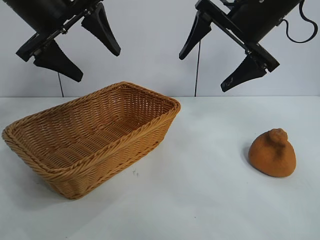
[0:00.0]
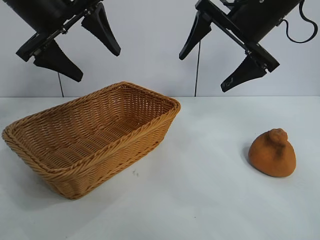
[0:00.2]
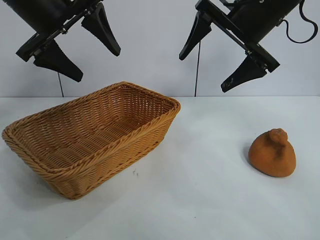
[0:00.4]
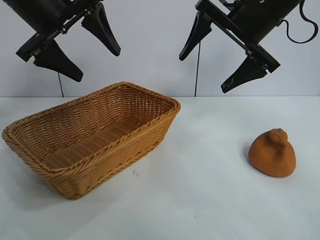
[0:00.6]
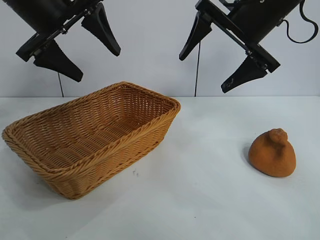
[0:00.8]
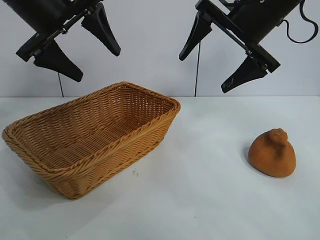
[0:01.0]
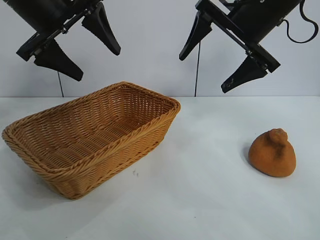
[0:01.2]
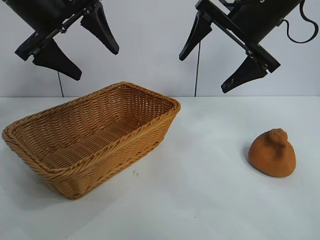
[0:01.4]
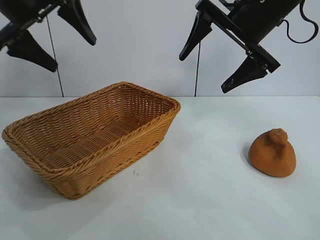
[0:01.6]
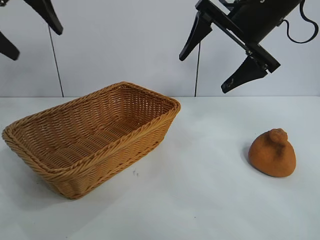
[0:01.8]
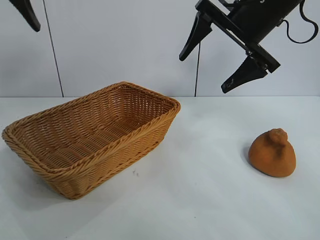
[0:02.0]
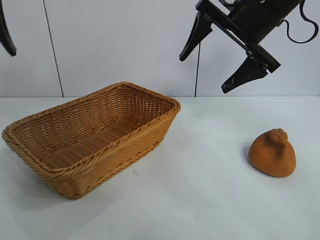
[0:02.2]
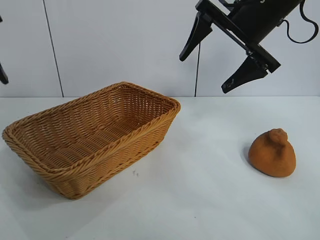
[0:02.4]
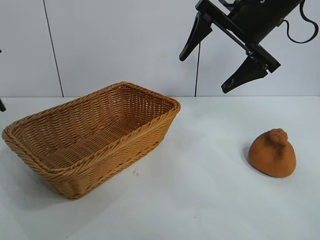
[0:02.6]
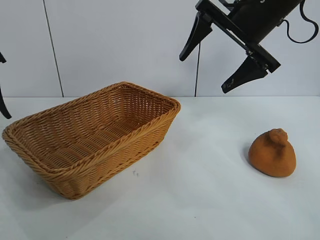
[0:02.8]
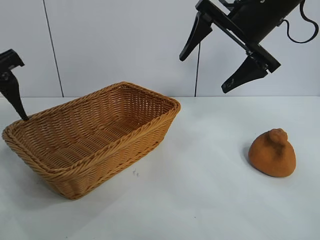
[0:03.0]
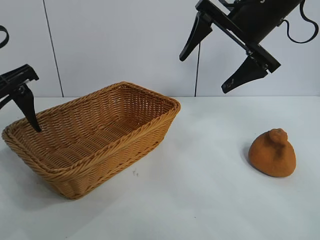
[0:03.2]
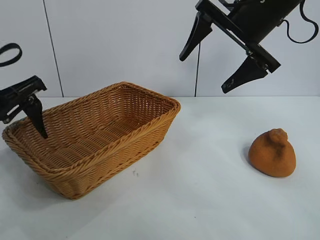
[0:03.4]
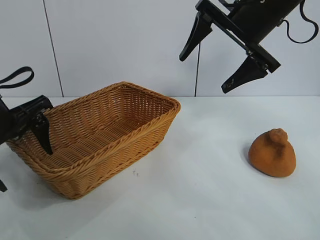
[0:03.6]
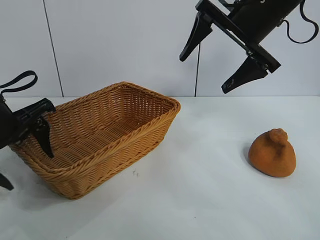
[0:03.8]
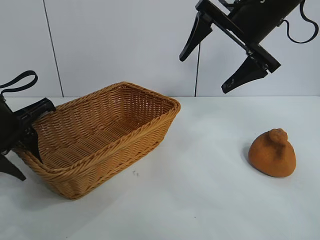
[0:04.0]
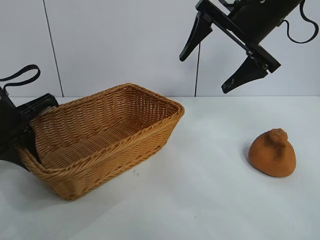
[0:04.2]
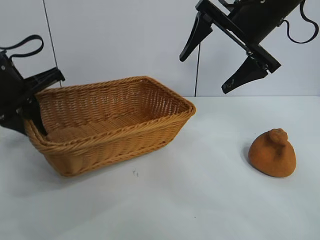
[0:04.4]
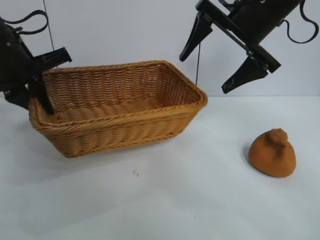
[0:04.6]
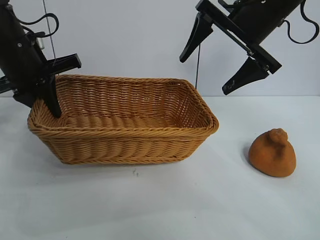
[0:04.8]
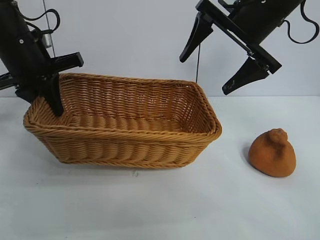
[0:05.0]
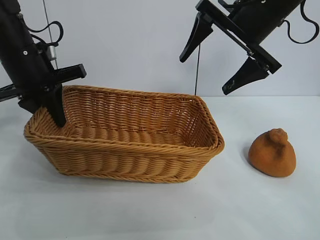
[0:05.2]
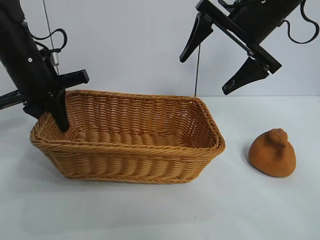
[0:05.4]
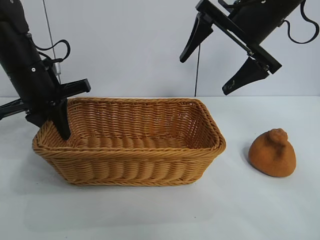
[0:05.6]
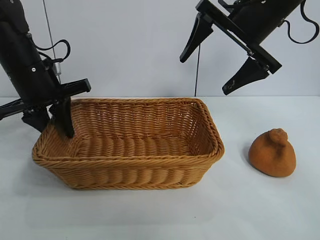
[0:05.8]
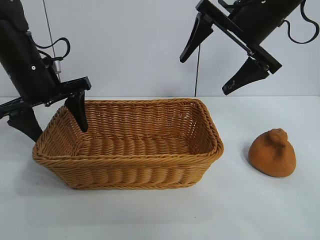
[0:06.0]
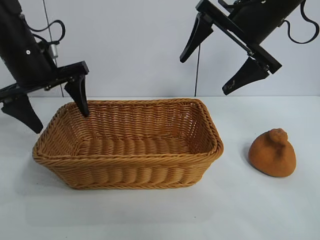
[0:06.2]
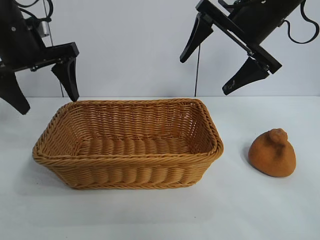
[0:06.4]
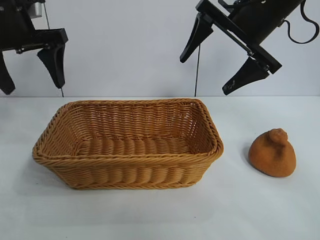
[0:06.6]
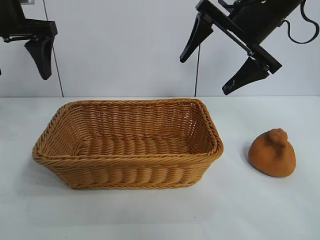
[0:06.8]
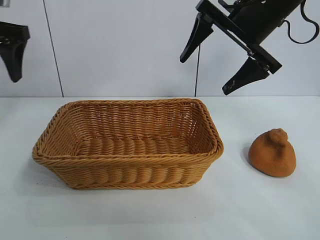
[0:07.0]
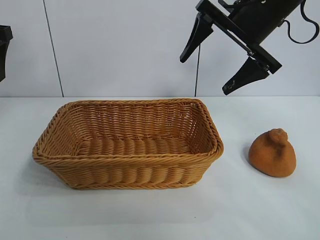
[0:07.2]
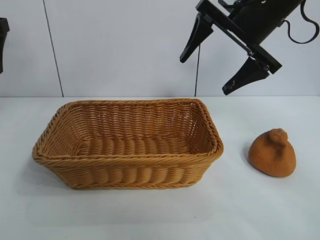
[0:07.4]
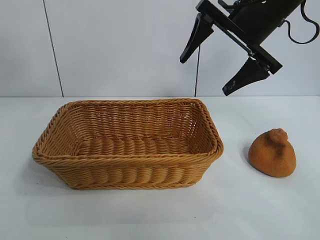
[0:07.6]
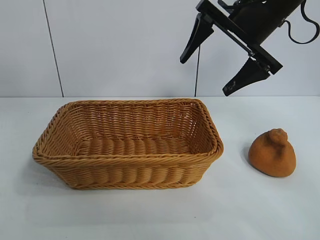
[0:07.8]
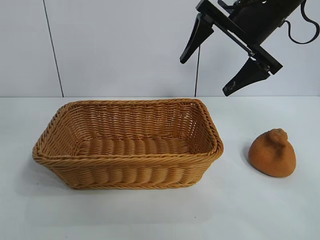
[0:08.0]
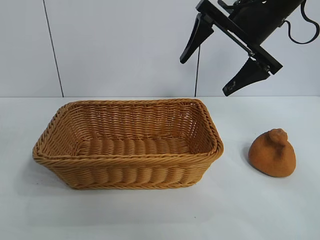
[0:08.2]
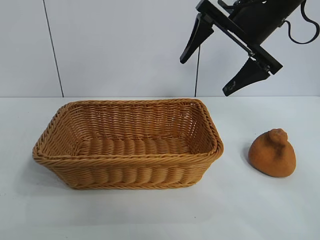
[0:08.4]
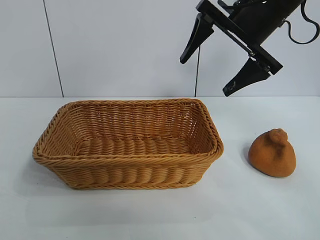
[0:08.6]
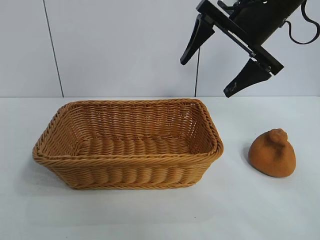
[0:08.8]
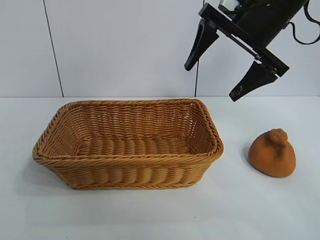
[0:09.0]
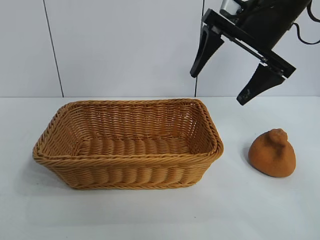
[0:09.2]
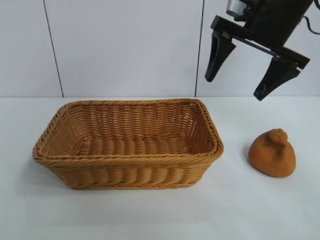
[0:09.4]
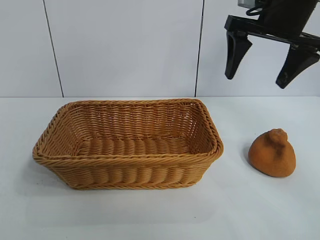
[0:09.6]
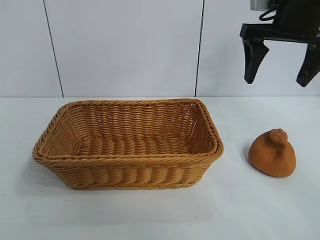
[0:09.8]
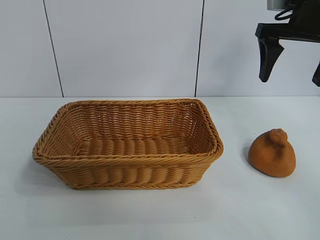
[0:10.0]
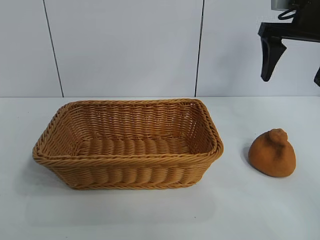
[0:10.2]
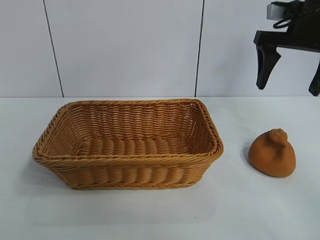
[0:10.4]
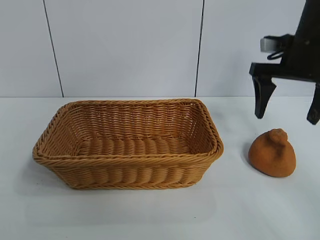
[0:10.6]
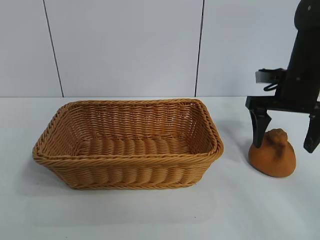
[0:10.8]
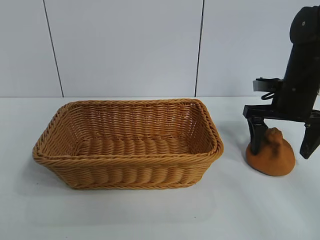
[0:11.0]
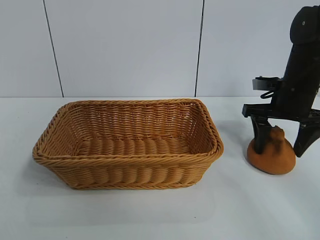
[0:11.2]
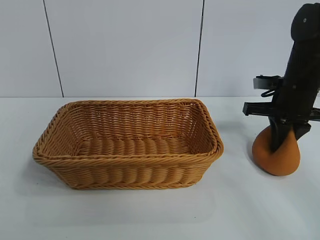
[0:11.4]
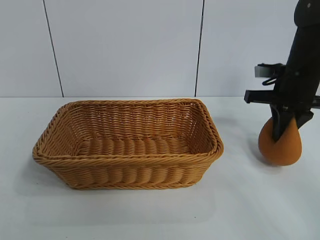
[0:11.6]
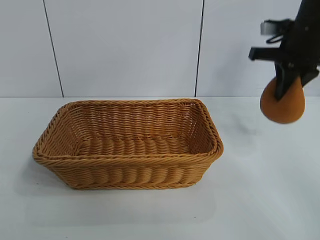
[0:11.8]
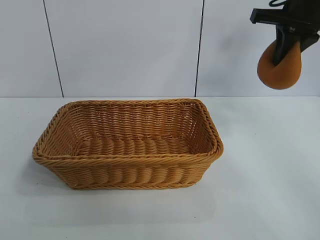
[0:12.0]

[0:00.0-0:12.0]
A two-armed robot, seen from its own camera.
Task of the whole recording: pick up the orange and put it into the basket.
Step, 0:00.8 to 0:04.0: Grasp the basket with left gripper.
Step, 0:04.2 to 0:05.8: Place the basket in the center of view with left gripper.
Step, 0:06.2 to 0:11.4: Grasp the orange with right gripper.

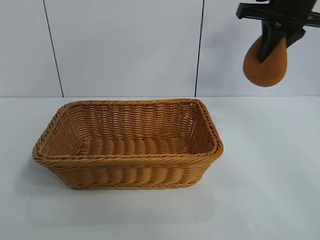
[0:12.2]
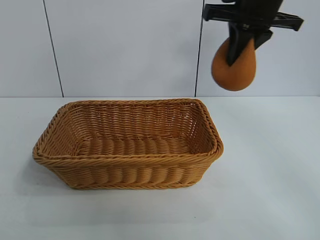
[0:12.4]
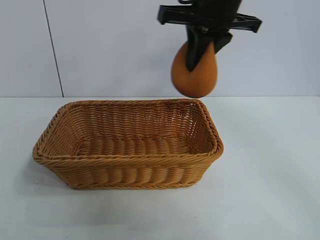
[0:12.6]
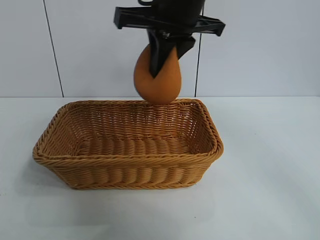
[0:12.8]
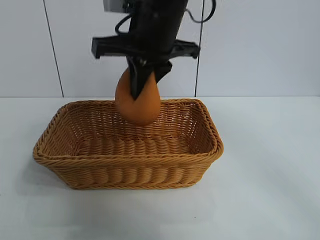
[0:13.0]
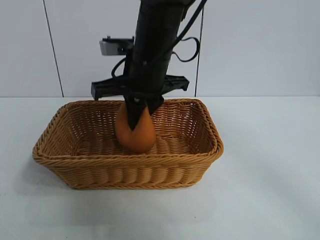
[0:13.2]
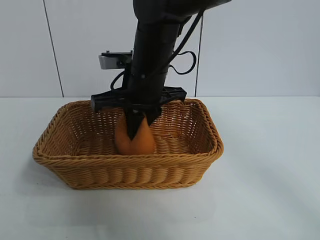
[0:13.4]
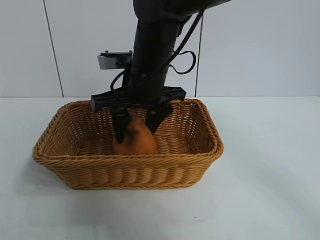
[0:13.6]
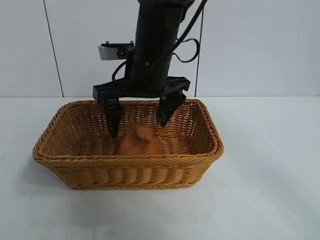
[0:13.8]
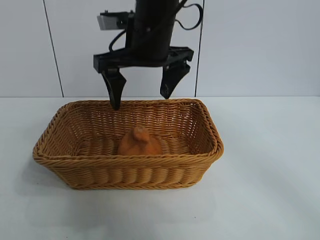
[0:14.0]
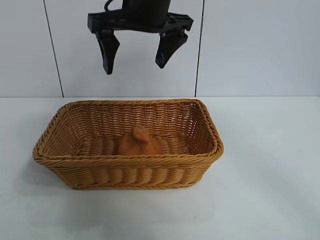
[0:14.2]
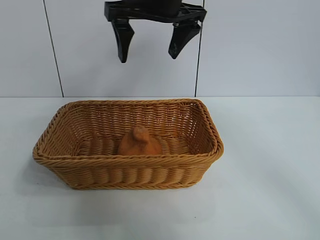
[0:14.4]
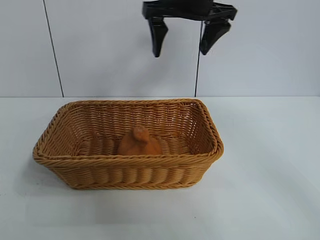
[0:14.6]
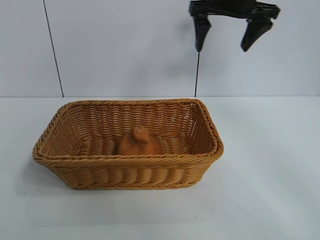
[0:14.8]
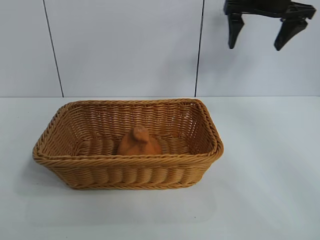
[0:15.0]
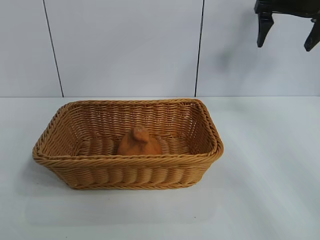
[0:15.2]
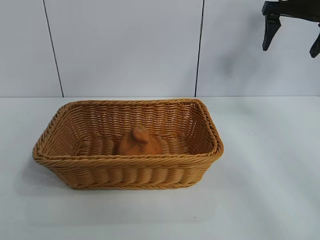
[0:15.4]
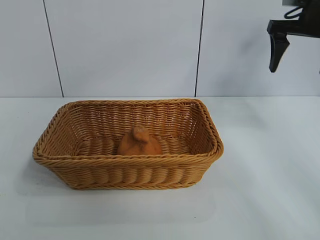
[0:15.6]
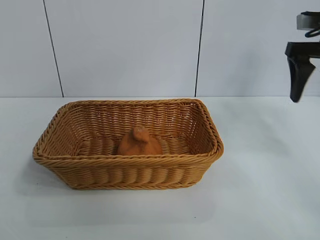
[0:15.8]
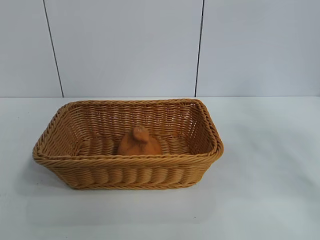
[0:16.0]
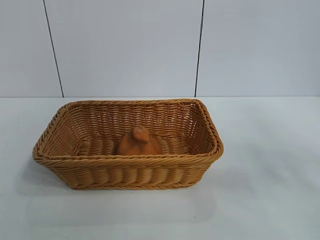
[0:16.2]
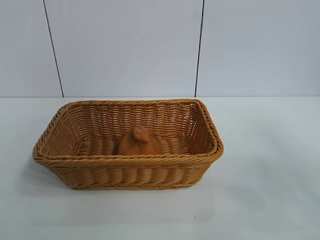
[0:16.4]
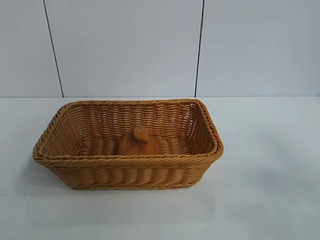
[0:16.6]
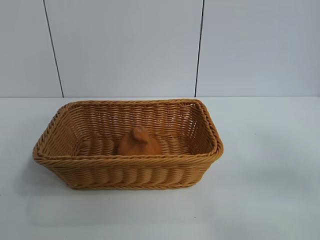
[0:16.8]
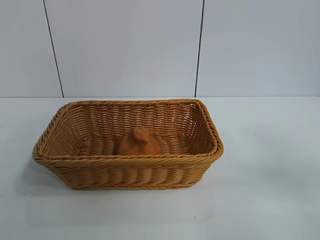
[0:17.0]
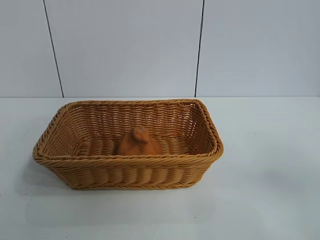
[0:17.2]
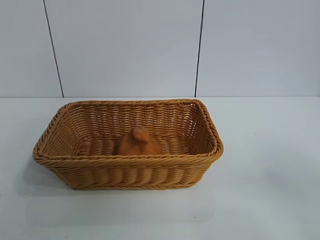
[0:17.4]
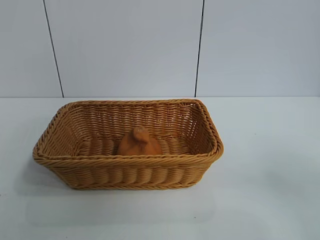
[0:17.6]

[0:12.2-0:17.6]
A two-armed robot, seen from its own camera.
Task of the whole recording: pick up the orange and put it into the basket.
Step, 0:12.2 to 0:13.8: Place the orange in the basket with right gripper.

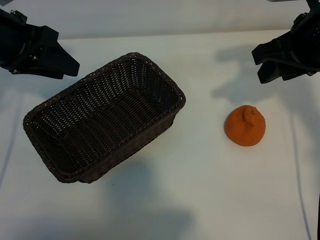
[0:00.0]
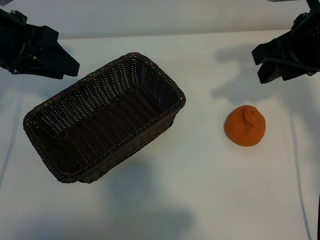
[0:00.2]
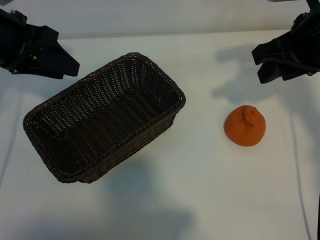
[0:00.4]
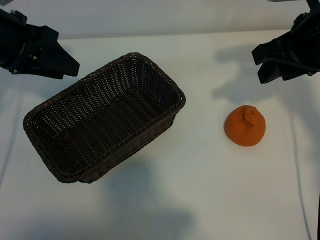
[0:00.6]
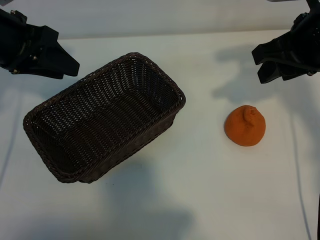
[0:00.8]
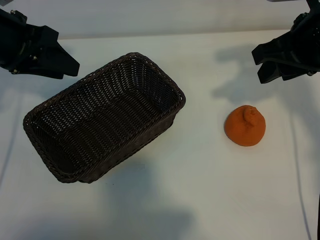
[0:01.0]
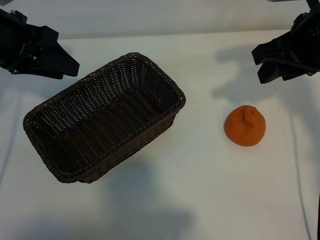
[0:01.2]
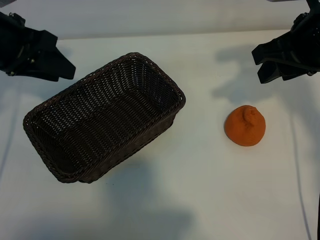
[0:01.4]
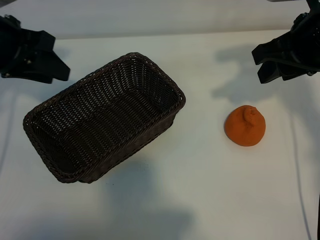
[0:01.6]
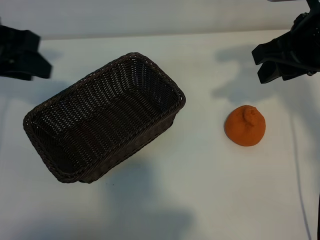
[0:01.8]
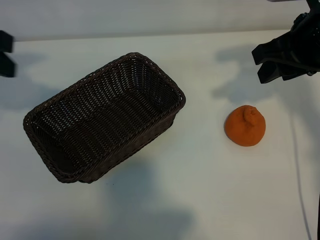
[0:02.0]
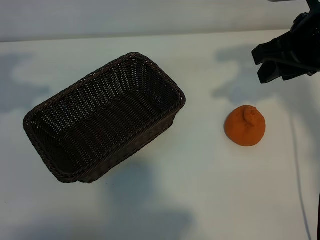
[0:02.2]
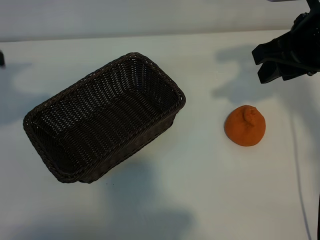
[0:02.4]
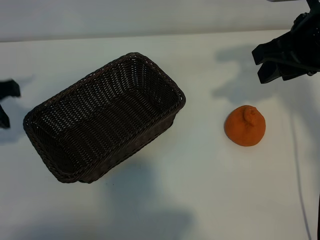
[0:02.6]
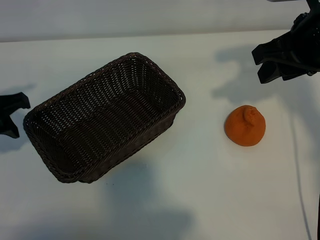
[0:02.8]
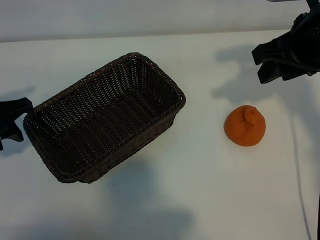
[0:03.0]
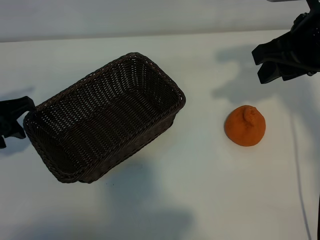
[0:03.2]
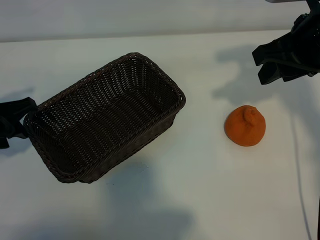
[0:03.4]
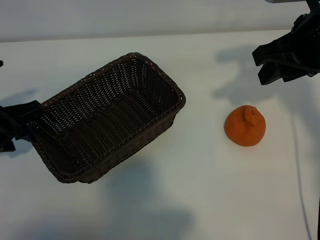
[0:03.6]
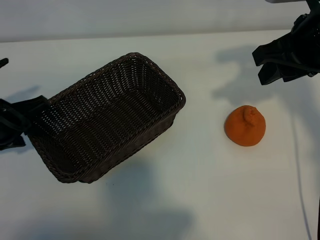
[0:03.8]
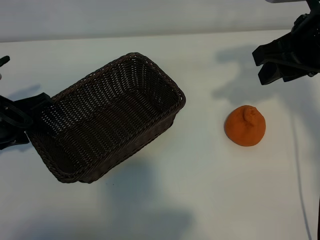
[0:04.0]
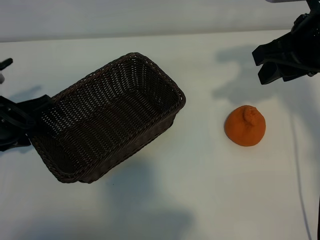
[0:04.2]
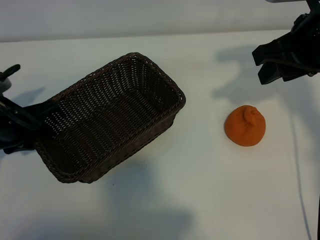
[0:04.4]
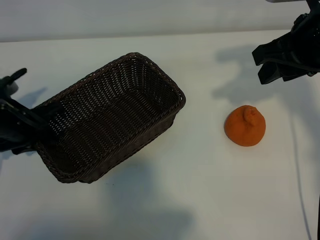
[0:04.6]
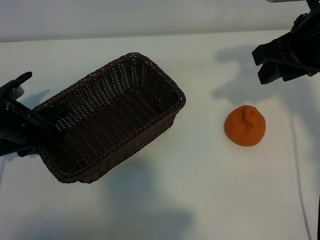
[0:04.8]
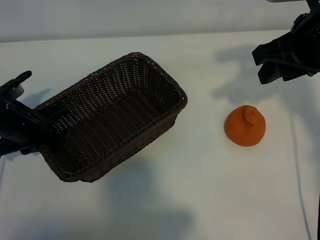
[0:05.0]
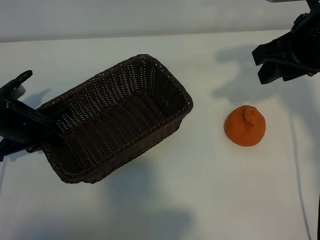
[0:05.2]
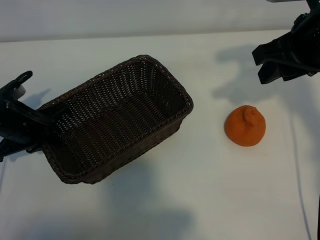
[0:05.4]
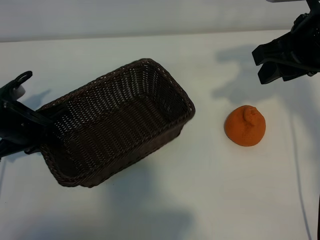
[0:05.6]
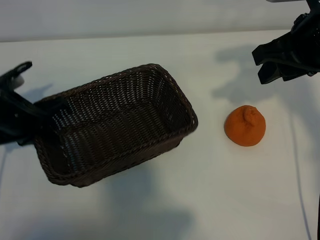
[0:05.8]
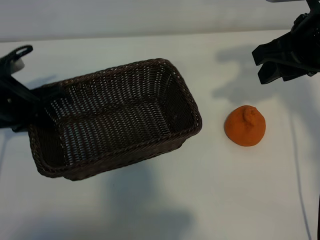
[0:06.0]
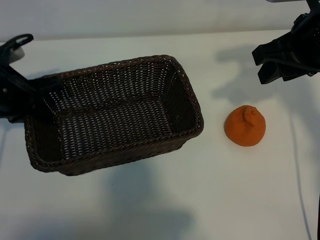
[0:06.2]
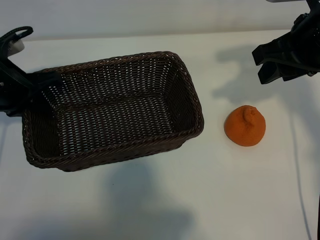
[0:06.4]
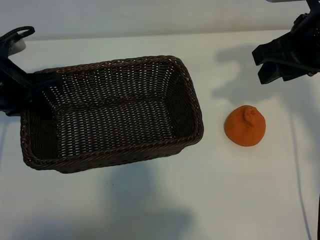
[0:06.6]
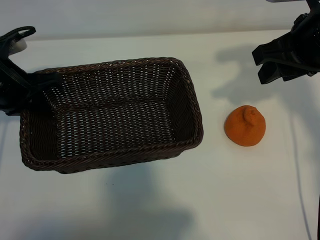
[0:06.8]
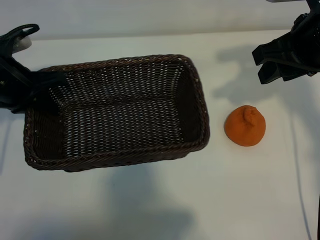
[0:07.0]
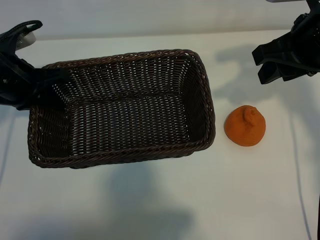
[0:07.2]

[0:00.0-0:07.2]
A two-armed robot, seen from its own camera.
Task of the whole recording: pick up the orange and put it into the basket.
Step, 0:01.2 to 0:05.2: Grasp the basket with left gripper.
